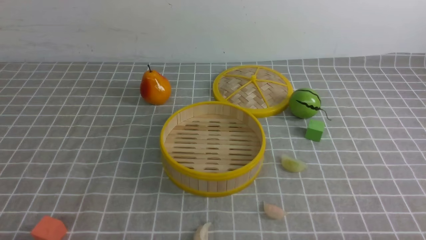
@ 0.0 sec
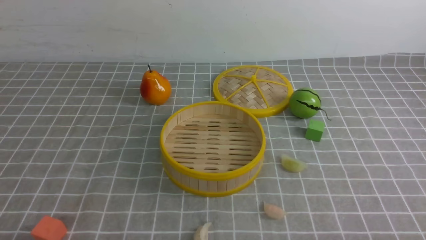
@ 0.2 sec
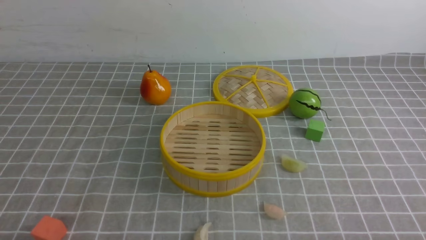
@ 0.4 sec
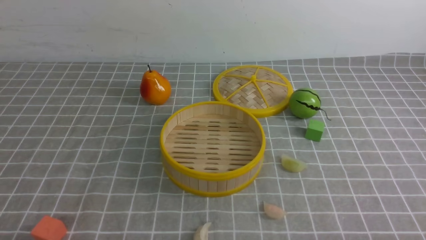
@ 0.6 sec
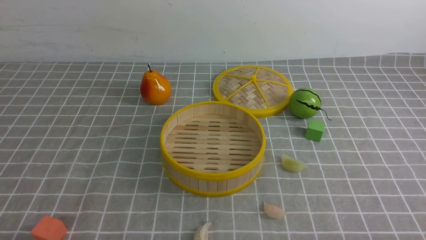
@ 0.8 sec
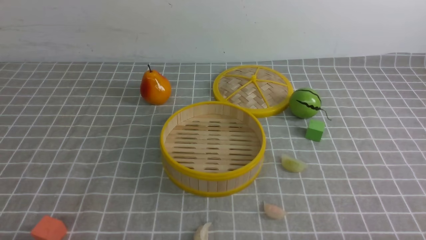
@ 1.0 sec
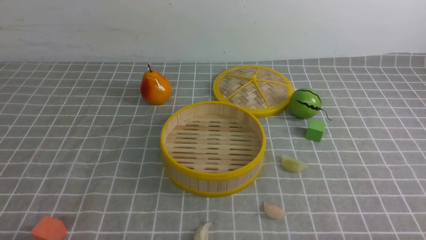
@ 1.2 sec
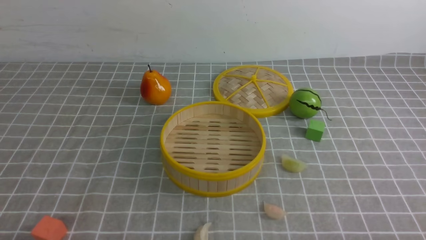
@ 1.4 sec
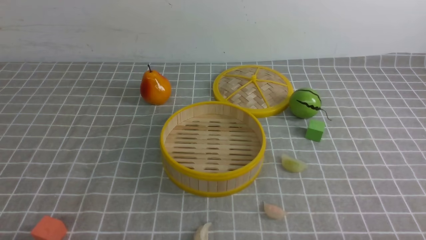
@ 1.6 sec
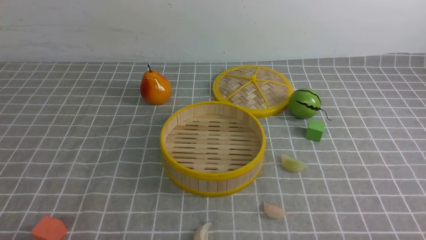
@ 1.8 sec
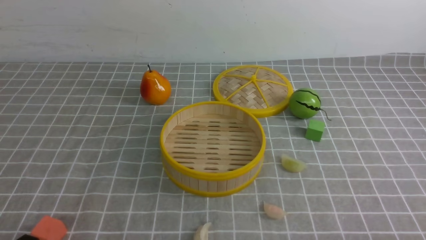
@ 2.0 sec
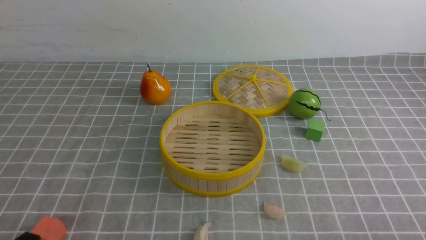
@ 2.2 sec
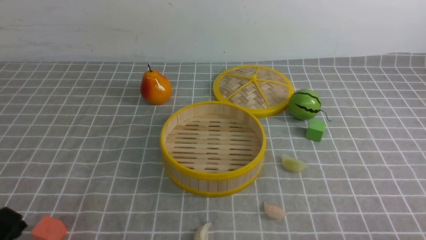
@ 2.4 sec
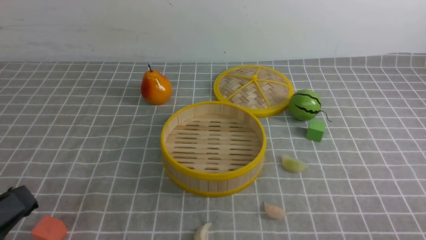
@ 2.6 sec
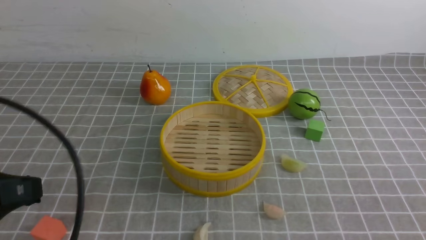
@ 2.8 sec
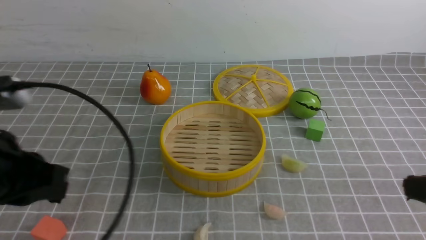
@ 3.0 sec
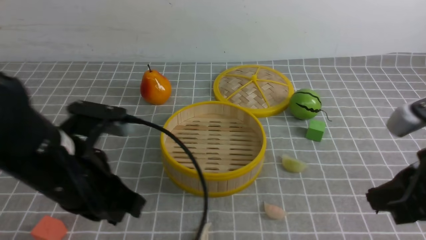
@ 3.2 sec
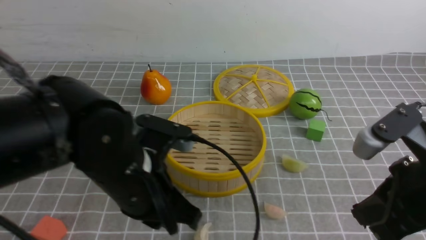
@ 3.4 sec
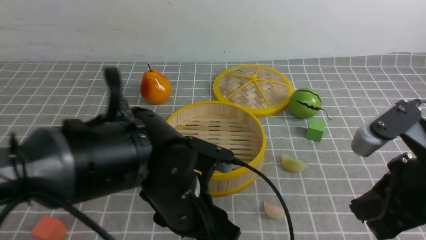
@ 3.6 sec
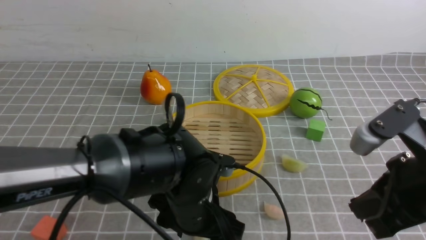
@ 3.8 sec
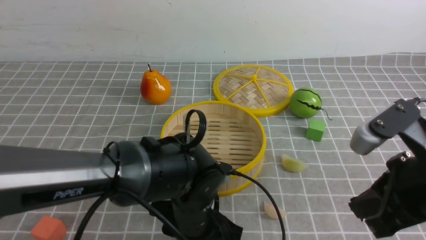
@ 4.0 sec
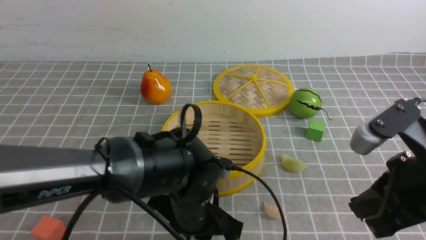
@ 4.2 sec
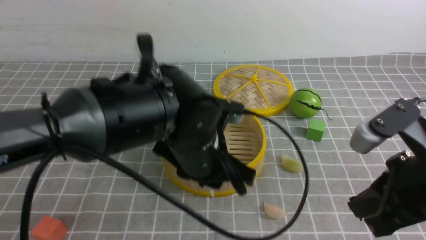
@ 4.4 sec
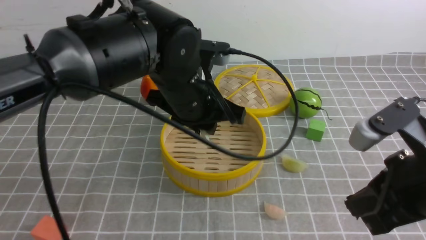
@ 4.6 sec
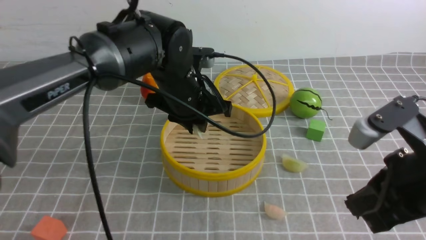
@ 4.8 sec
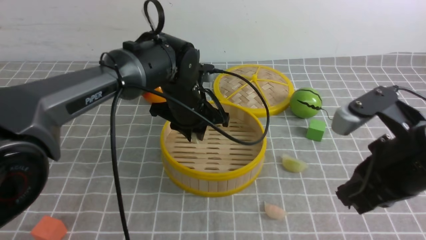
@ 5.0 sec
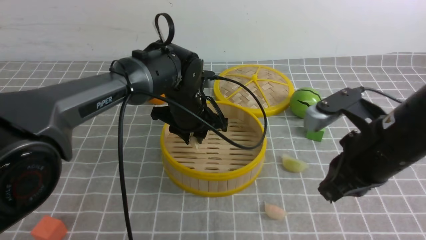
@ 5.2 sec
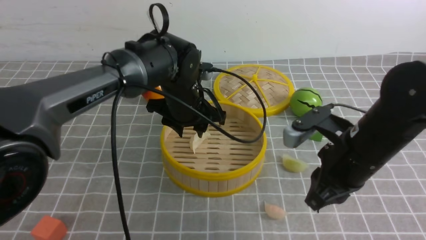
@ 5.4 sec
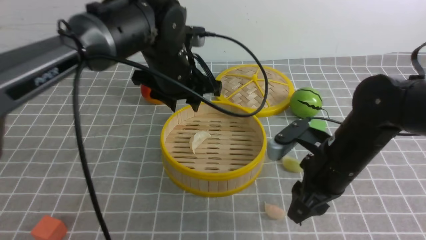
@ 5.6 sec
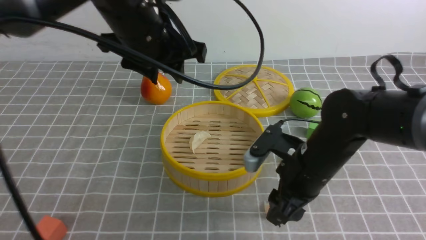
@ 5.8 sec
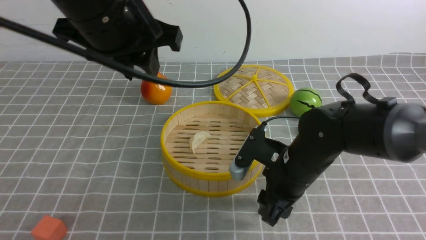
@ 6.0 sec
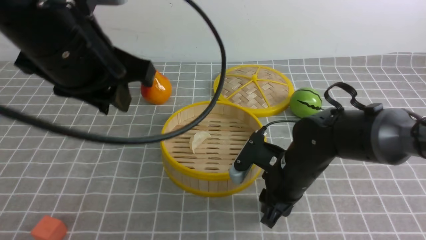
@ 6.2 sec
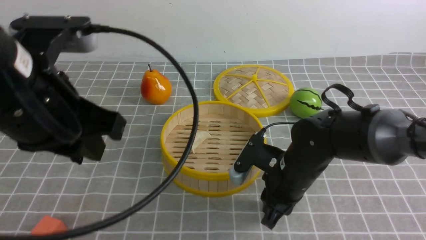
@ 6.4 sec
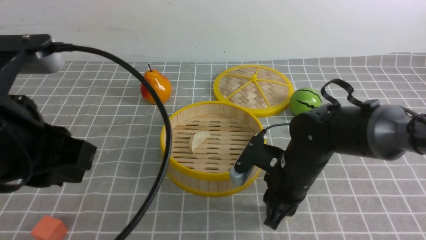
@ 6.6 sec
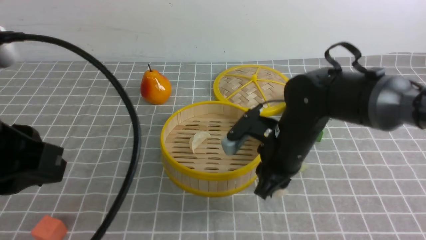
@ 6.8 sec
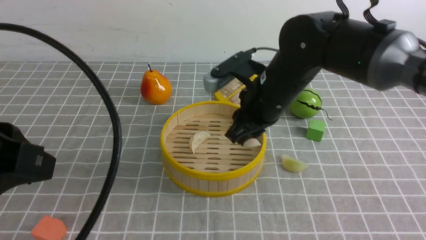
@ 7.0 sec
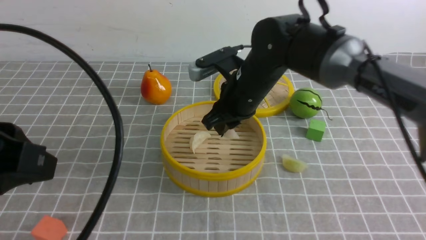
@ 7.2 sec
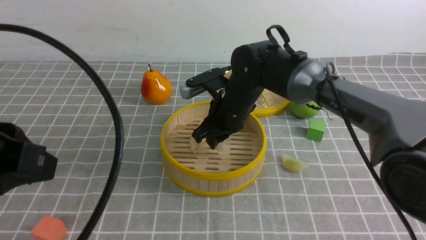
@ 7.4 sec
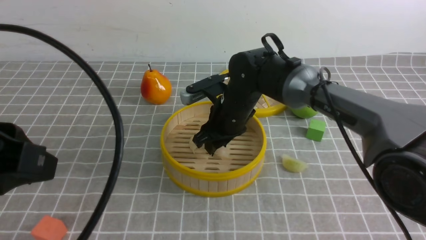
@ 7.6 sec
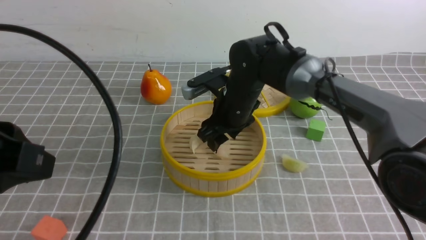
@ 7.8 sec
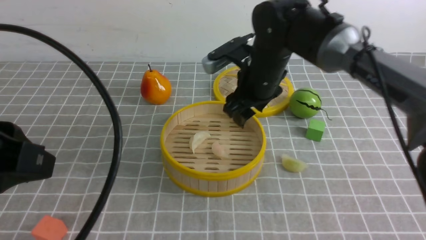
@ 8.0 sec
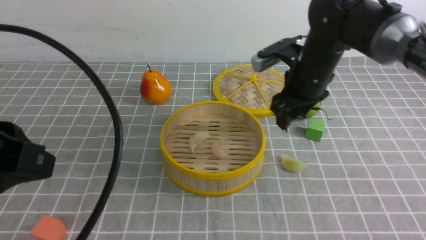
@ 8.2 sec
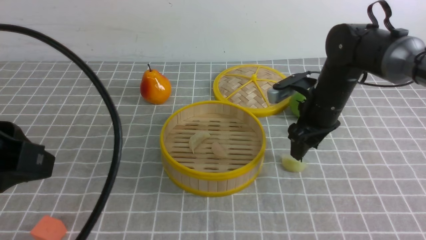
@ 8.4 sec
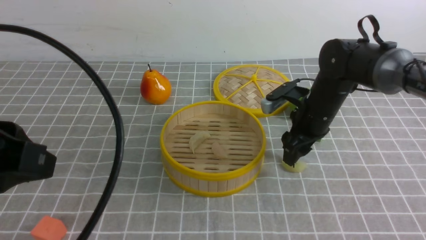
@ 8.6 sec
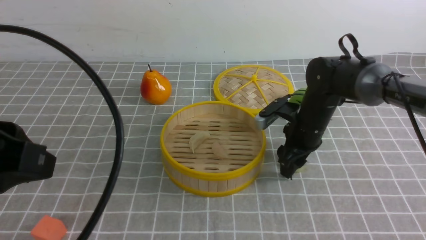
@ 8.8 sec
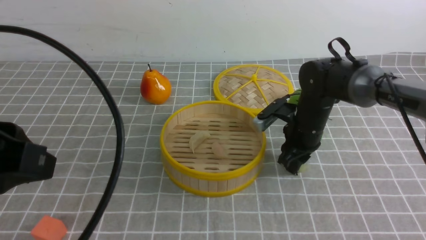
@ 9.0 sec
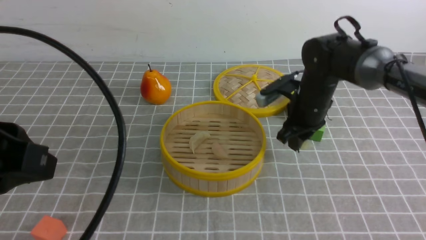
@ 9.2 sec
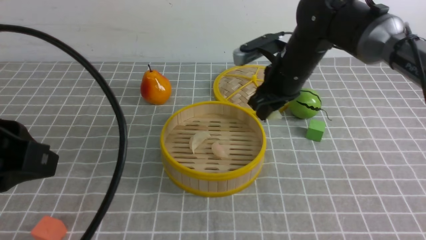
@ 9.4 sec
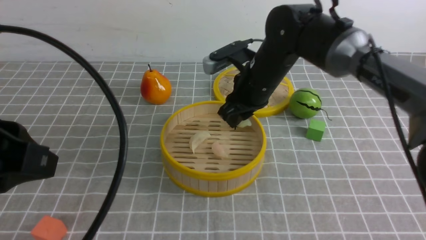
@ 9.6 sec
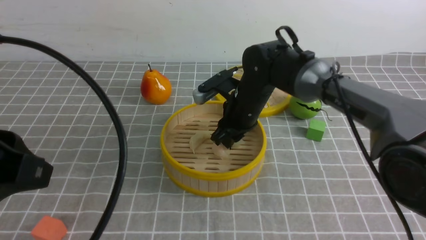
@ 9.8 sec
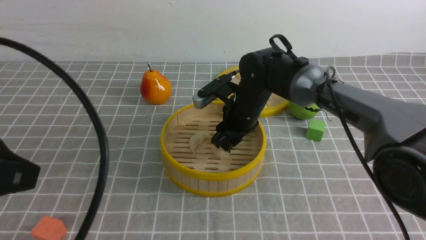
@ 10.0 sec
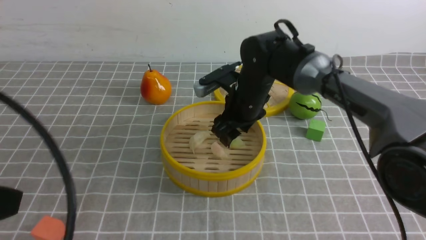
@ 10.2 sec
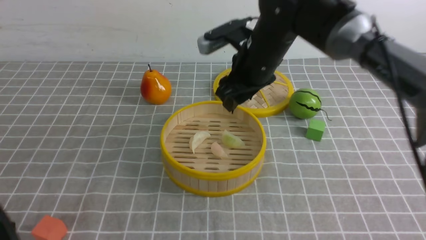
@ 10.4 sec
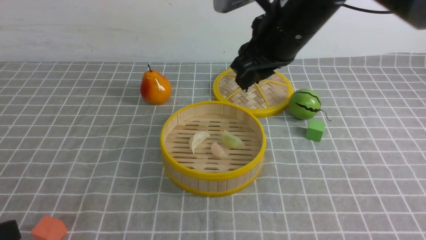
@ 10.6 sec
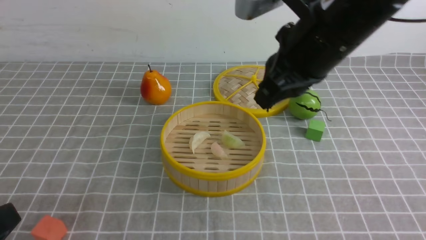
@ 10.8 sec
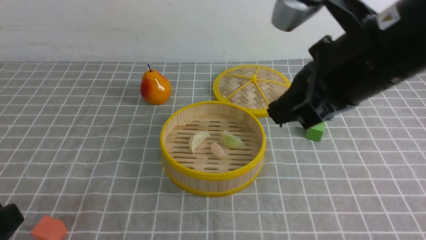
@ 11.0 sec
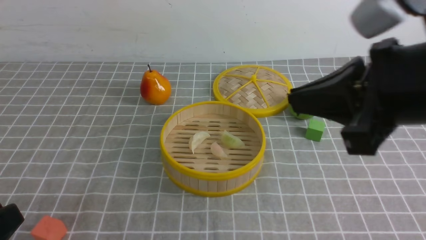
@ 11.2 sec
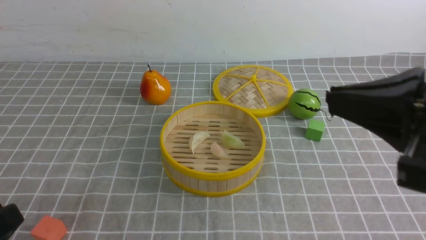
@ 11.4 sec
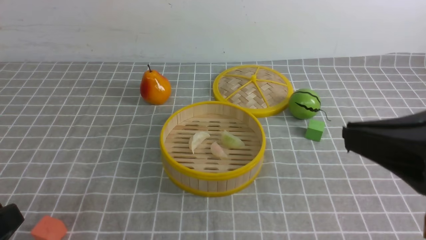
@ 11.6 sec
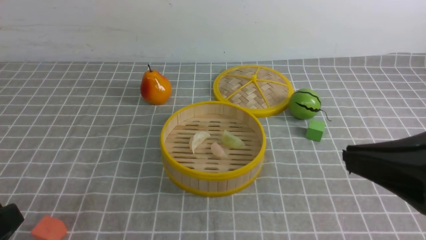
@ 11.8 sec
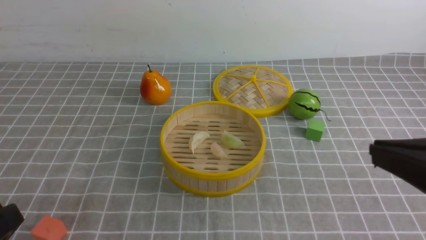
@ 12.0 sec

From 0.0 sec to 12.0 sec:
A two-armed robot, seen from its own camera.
Task of the whole recording: put the dumplings into the steamer on the table with the grey tablecloth.
Step, from 0.0 sec to 4.0 sec: use the left arm to grab a dumpling.
Step, from 4.2 sec to 5.6 sec: use the left arm to put the dumpling into the steamer.
Step, from 5.8 sec to 6.6 sec: use the right arm to grab a dumpling.
Step, from 6.8 sec to 8.0 sec: use the right arm to put the dumpling into the steamer.
Step, from 8.2 sec to 9.0 sec: use the right arm to grab a dumpling.
Step, from 9.4 sec to 10.2 sec: use the right arm to put the dumpling into the steamer.
From 1.6 sec to 3.0 sec: The two grippers go roughly 15 cm upward and forward. The right gripper closes up. Meanwhile the left gripper closes its fingers.
From 3.0 sec to 4.4 sec: The right gripper travels to the left and forward by approximately 10 cm, while the left gripper shifts roughly 25 cm to the right, forward and downward, and opens.
From 4.4 sec to 6.0 sec: The right gripper moves forward, downward and to the left, about 20 cm, and opens up; the left gripper goes up and down, approximately 20 cm each way, reversing 2 times.
From 6.0 sec to 7.6 sec: The right gripper shifts approximately 15 cm forward and to the left, while the left gripper is displaced backward and to the left by approximately 20 cm.
From 7.6 sec to 9.0 sec: The right gripper moves to the right, some 15 cm.
From 9.0 sec to 10.4 sec: The left gripper goes some 5 cm backward. The right gripper shifts roughly 15 cm upward and to the left.
From 10.4 sec to 12.0 sec: The left gripper travels downward by roughly 5 cm; the right gripper travels backward and to the right by about 35 cm, and closes.

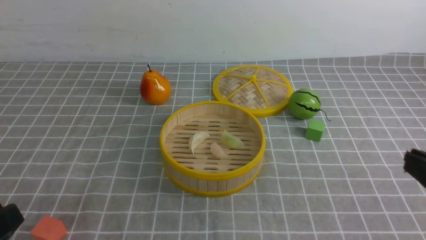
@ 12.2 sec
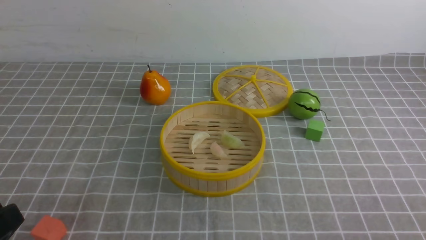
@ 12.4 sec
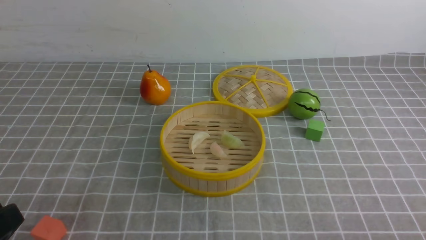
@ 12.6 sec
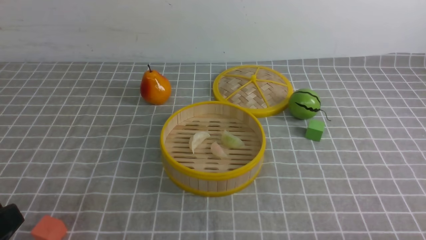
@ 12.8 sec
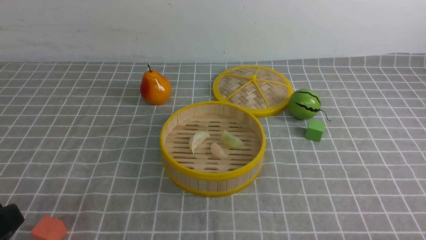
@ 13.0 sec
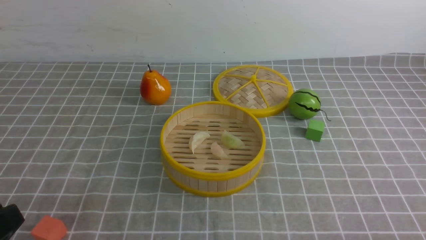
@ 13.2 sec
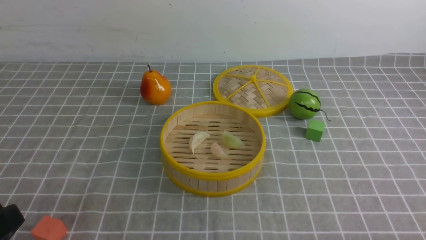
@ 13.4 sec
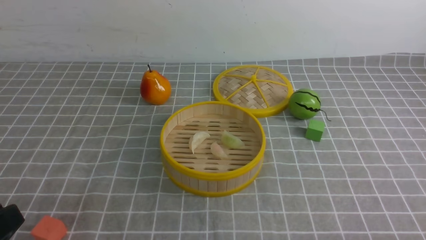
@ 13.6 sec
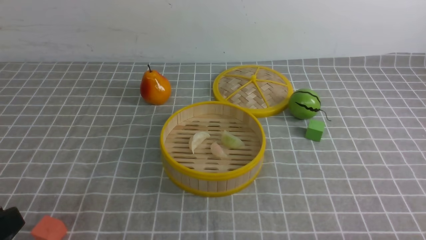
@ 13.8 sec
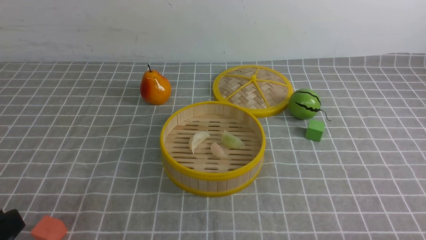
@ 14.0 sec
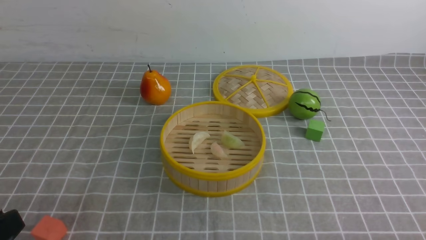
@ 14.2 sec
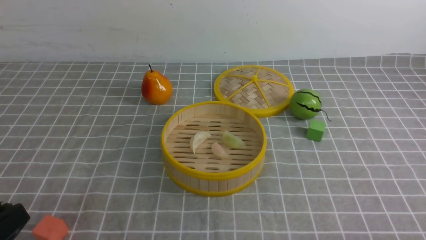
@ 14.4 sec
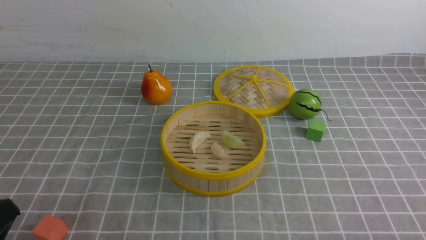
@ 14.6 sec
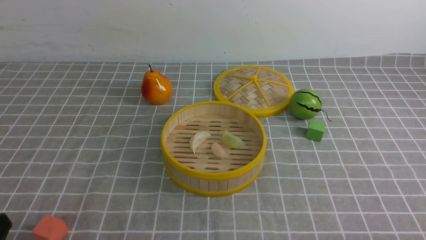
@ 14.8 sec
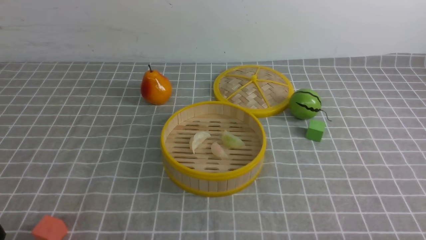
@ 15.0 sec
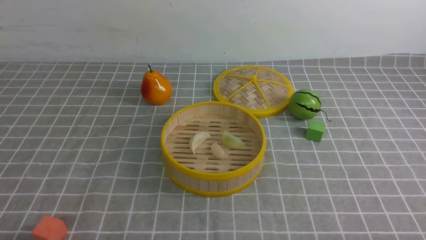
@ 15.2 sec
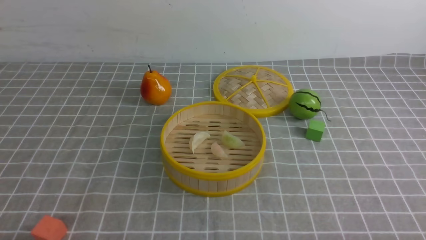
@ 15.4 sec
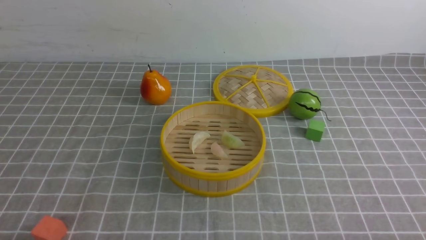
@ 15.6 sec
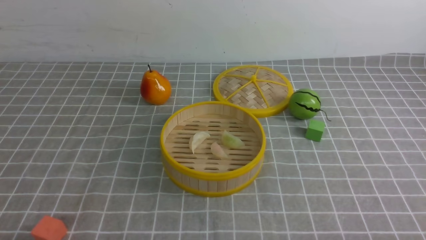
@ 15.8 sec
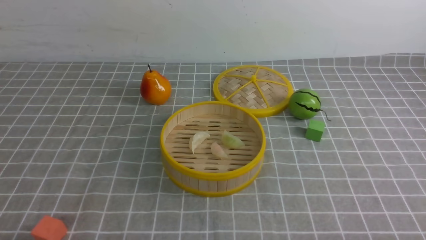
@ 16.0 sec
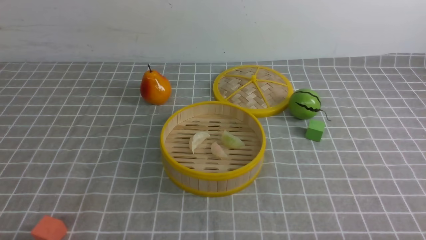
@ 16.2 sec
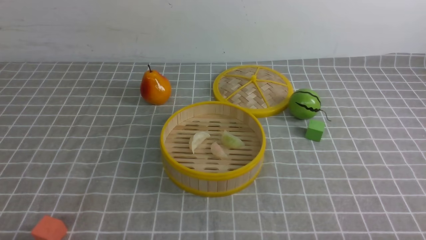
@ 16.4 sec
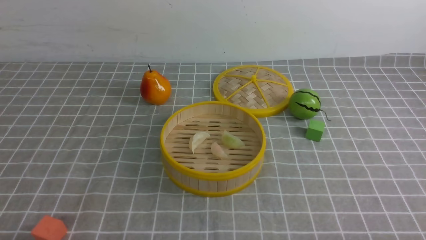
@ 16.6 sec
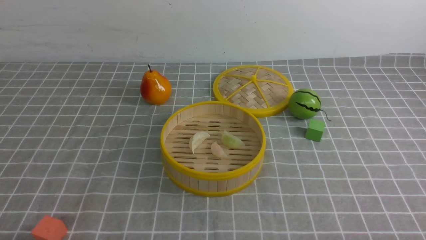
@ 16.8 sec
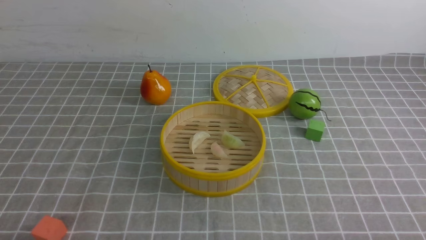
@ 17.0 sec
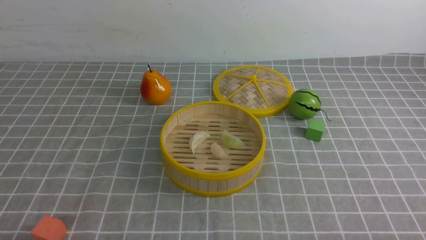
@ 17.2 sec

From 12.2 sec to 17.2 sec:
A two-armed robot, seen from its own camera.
Task of the whole recording: put the dumplings into the steamer on the table with the grey tablecloth.
From 12.2 sec to 13.8 sec: The right gripper shifts some 15 cm downward.
From 13.8 sec to 15.6 sec: The left gripper heads downward, covering some 10 cm, and closes.
From 15.6 sec to 17.2 sec: Both grippers stay put.
